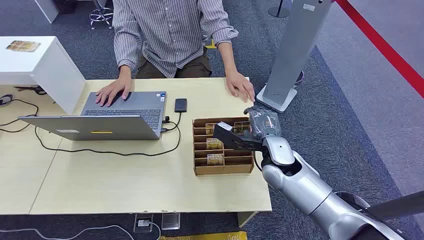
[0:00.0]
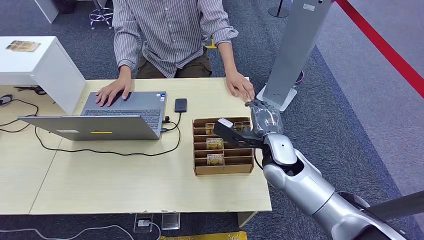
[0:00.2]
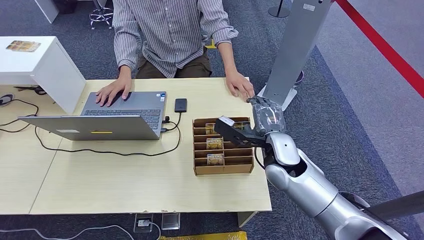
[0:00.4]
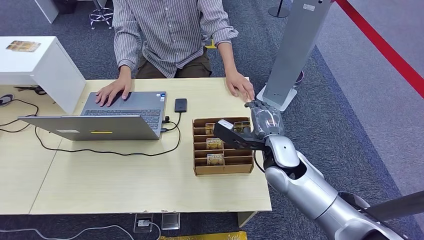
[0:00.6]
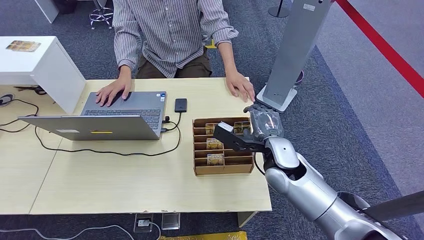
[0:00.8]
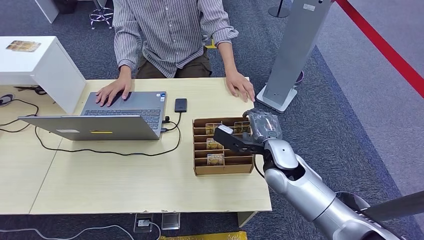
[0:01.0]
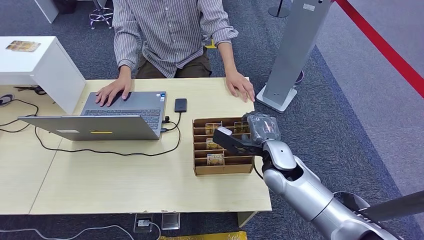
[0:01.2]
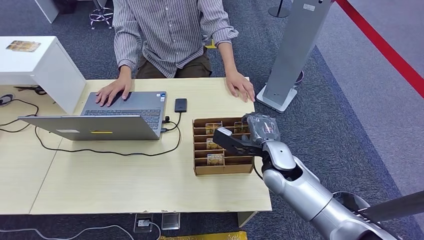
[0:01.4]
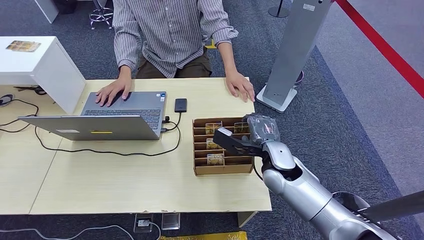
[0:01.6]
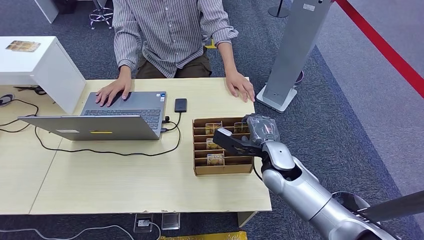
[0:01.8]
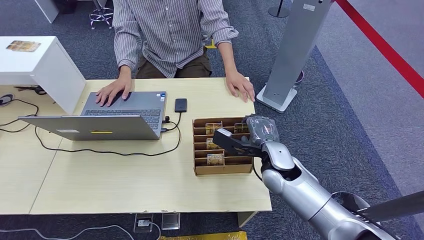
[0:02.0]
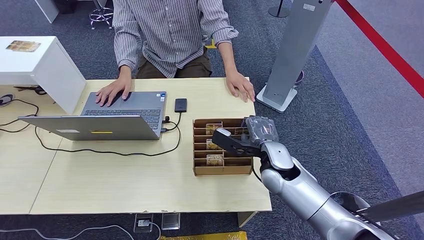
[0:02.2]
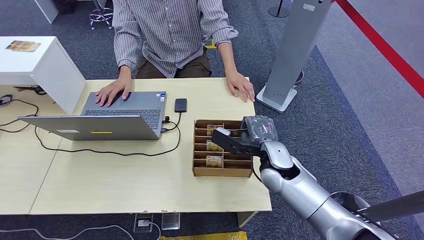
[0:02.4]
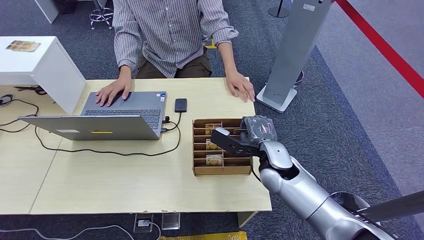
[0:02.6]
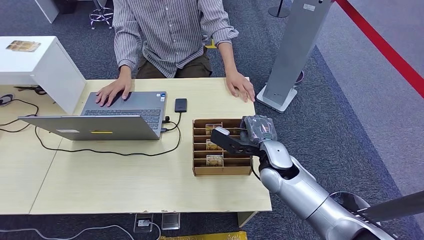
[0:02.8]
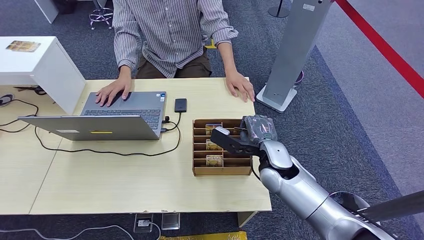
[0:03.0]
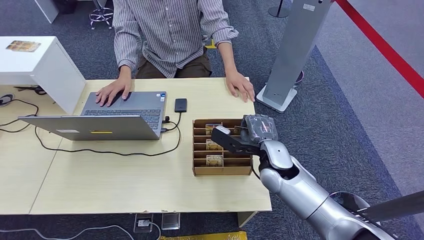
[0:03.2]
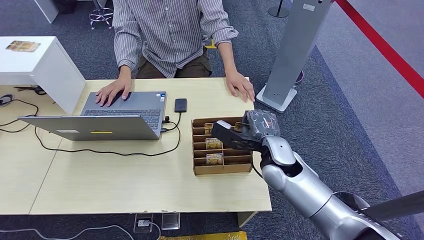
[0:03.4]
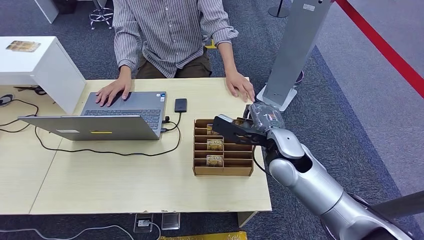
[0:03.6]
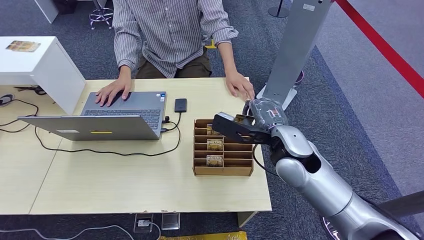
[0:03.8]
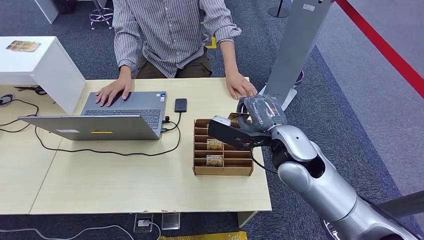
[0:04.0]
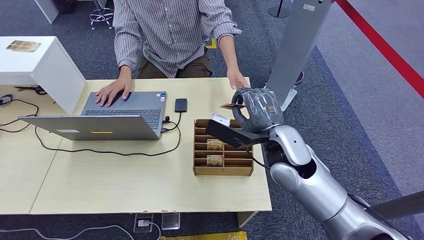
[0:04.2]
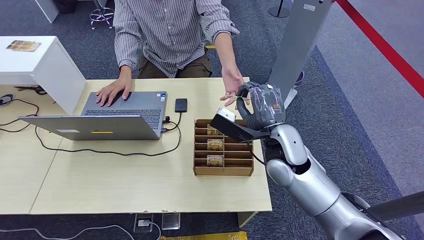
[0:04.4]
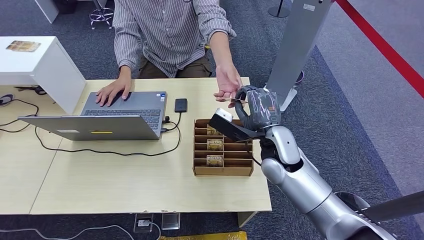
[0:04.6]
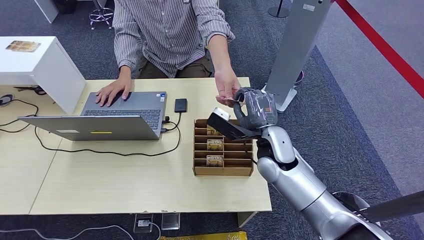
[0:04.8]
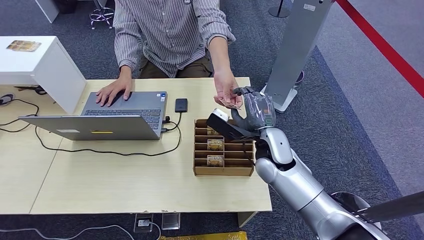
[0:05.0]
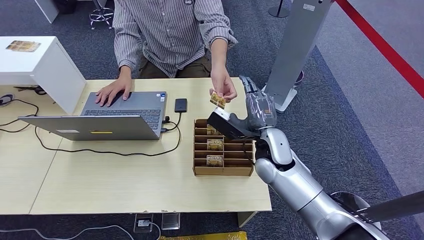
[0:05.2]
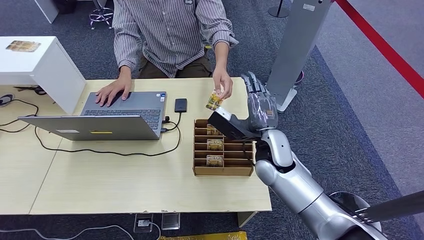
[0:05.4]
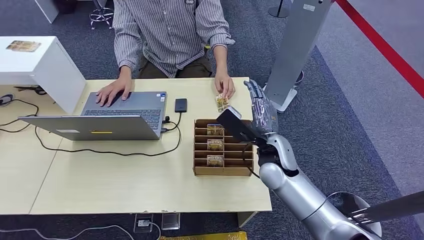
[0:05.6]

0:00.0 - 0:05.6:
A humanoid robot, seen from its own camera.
Step, 0:00.0 - 0:03.8: Pick up the key card from the card box.
Step, 0:04.6 - 0:05.4: Hand the key card to the target.
0:01.4 - 0:02.8: The two hands keep their place.
0:02.8 - 0:04.2: The right hand travels upward by about 10 cm.
0:04.2 - 0:05.6: The right hand goes approximately 5 cm downward.
